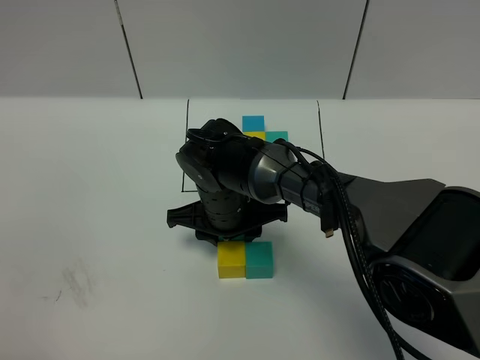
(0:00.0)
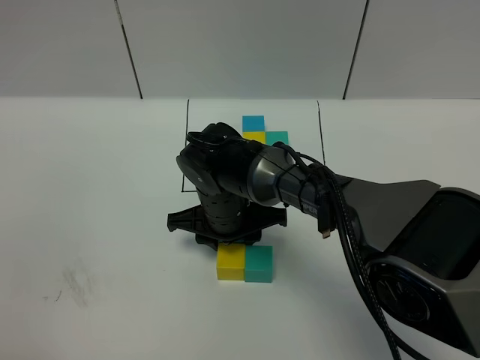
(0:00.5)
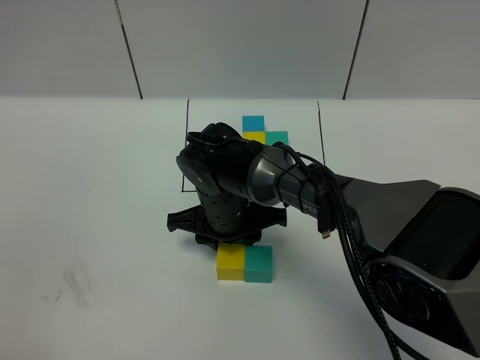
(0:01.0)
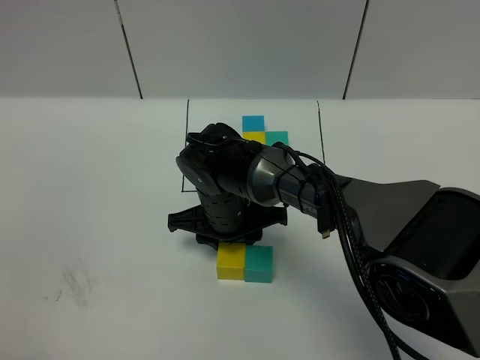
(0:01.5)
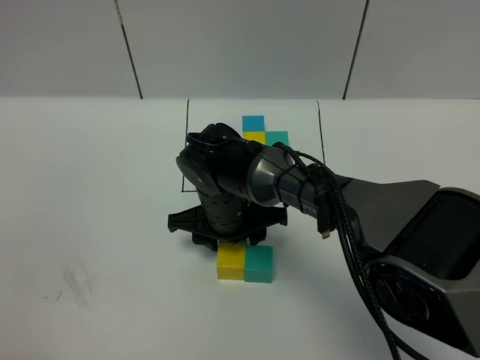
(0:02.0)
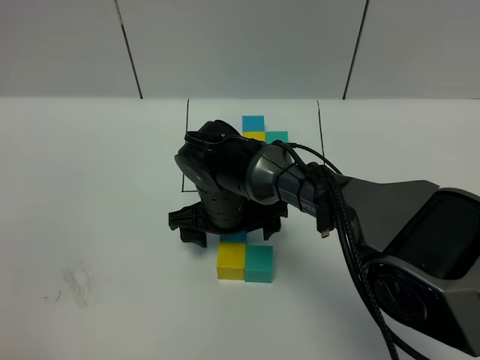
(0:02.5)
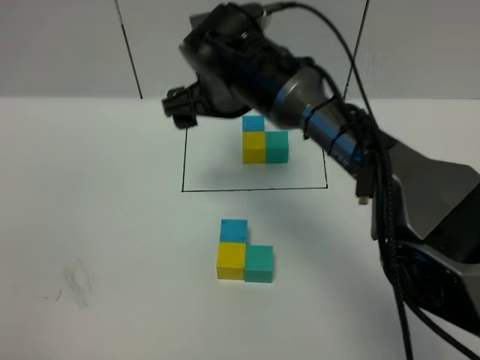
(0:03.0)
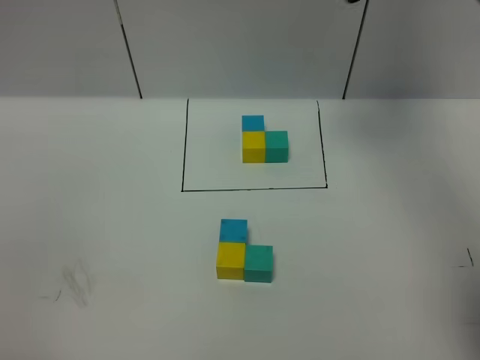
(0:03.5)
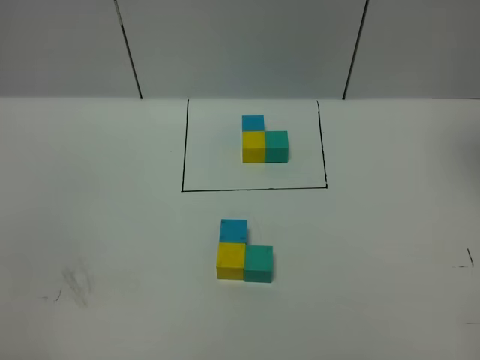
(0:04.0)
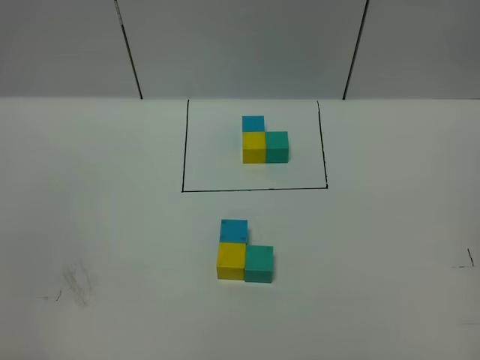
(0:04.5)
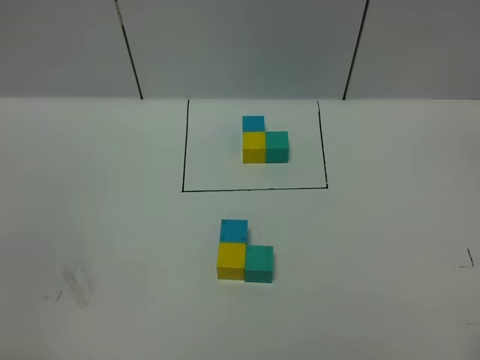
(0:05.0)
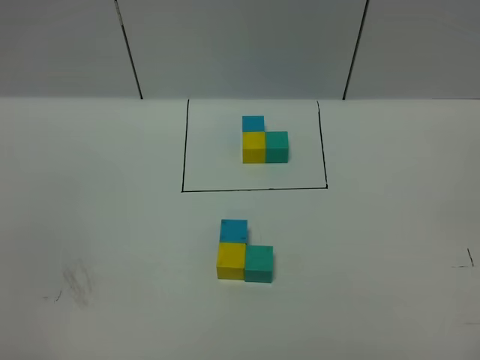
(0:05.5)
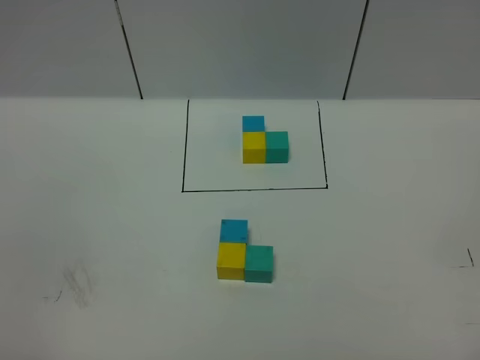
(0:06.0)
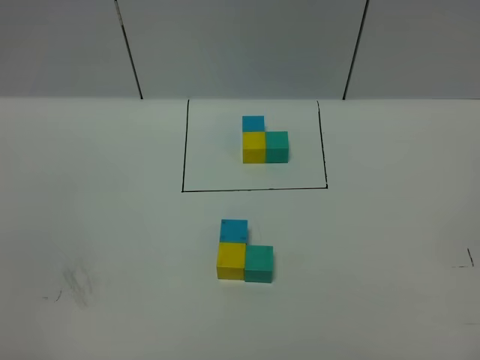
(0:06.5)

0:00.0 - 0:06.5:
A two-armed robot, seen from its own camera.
Task of the whole recording: According to the building block template in front, assemble the scattered blocks together.
Step, 0:00.0 - 0:02.5: Put the blue cube on the behind of the yellow cube.
0:00.0 - 0:02.0: The two grippers keep their place.
0:02.0 - 0:04.5: The right gripper shifts roughly 50 cm to the right, upward and backward, and opens up.
